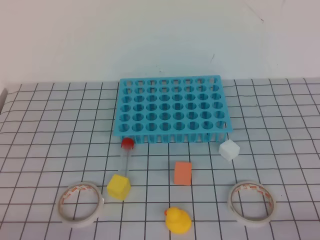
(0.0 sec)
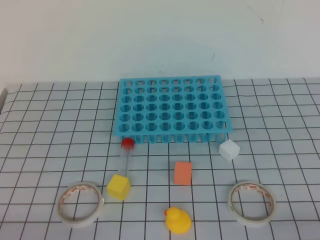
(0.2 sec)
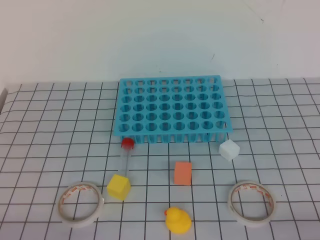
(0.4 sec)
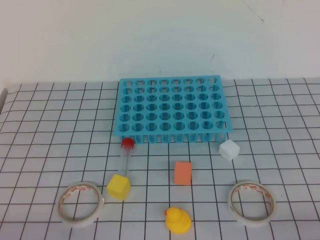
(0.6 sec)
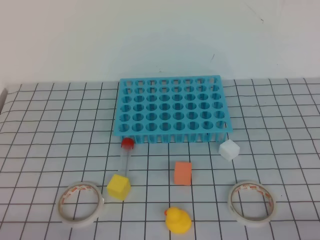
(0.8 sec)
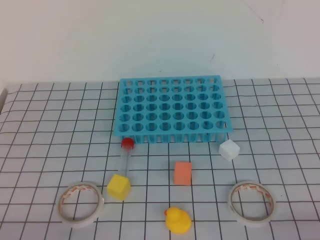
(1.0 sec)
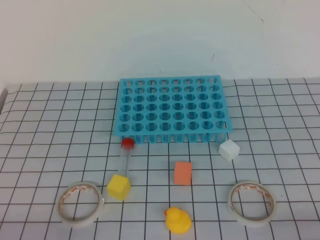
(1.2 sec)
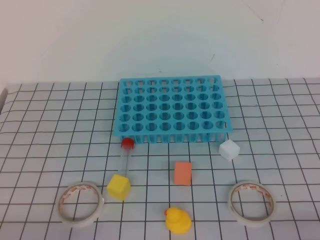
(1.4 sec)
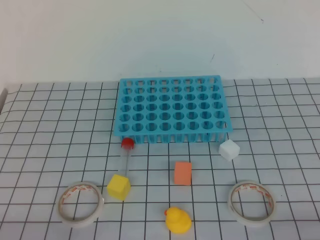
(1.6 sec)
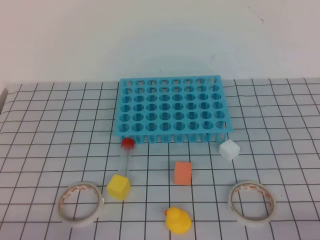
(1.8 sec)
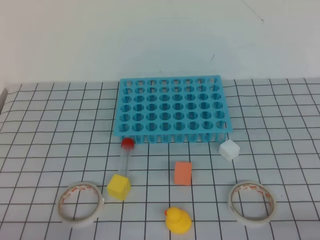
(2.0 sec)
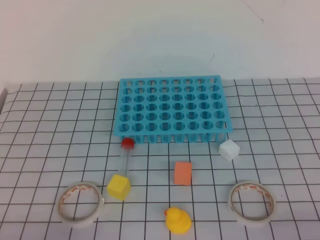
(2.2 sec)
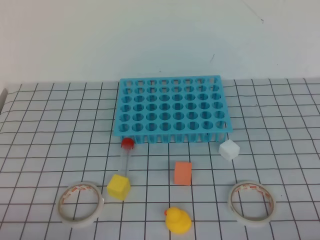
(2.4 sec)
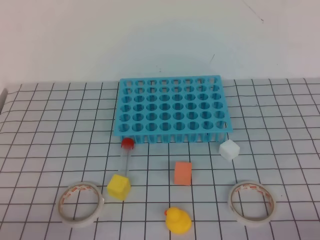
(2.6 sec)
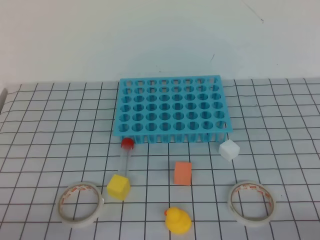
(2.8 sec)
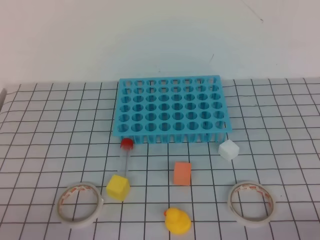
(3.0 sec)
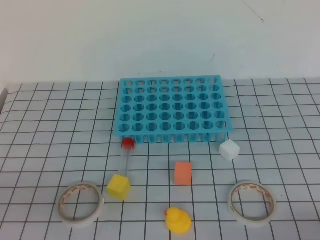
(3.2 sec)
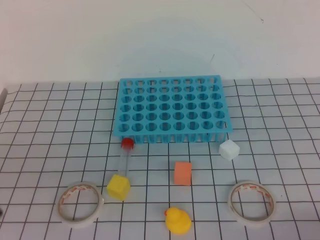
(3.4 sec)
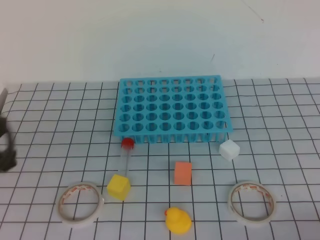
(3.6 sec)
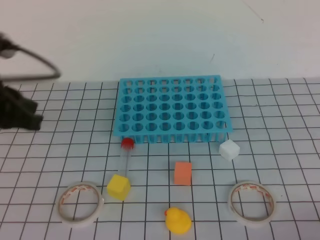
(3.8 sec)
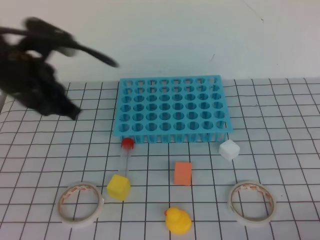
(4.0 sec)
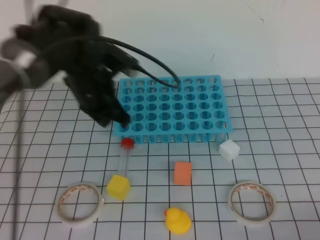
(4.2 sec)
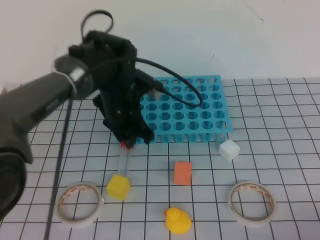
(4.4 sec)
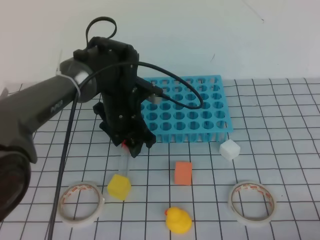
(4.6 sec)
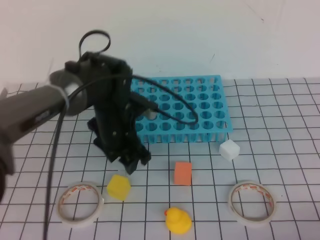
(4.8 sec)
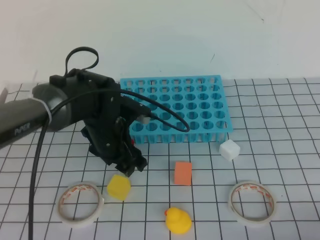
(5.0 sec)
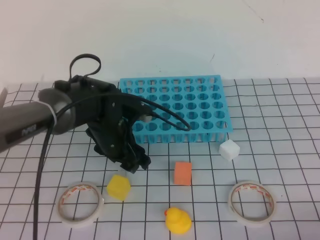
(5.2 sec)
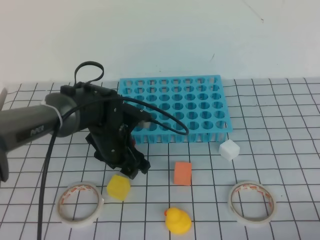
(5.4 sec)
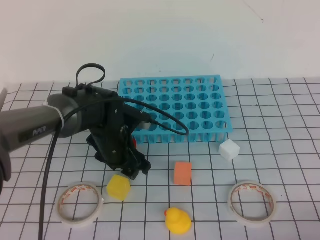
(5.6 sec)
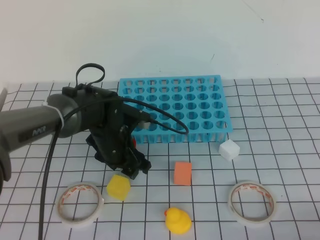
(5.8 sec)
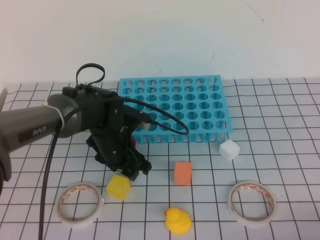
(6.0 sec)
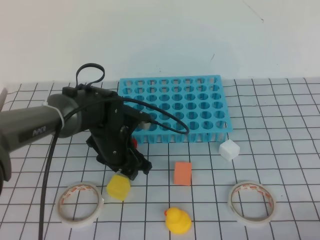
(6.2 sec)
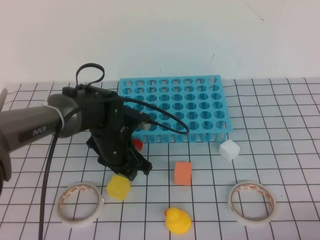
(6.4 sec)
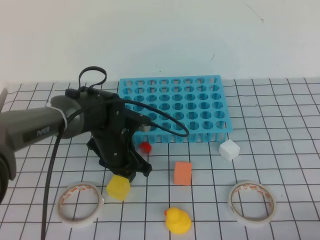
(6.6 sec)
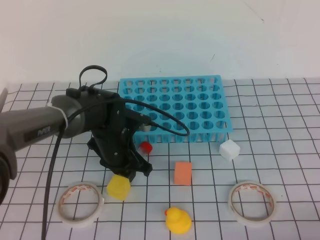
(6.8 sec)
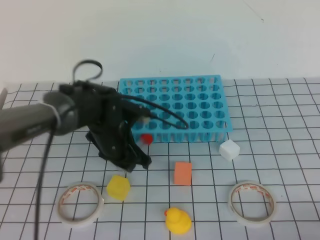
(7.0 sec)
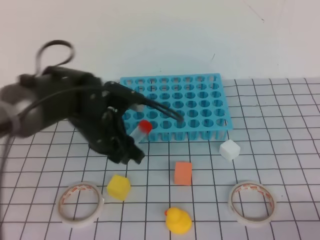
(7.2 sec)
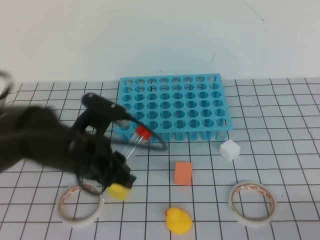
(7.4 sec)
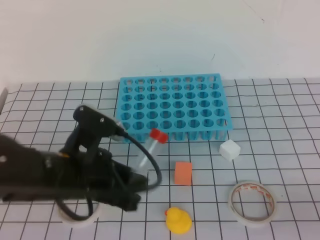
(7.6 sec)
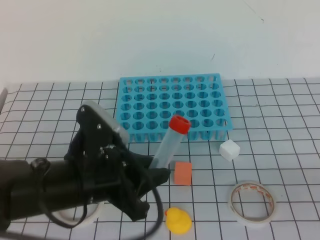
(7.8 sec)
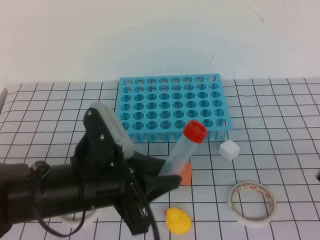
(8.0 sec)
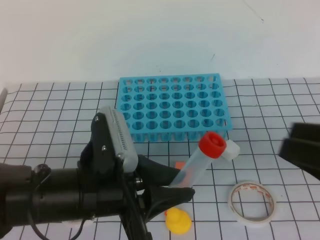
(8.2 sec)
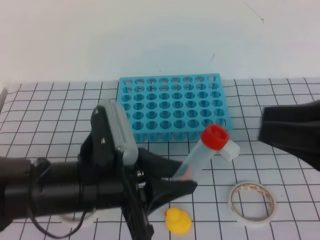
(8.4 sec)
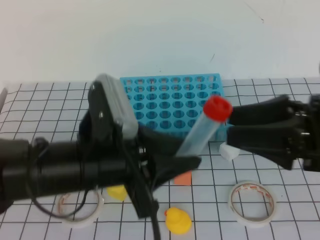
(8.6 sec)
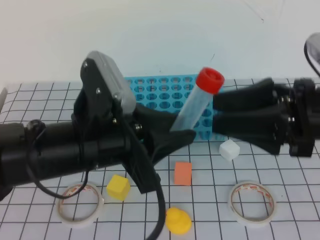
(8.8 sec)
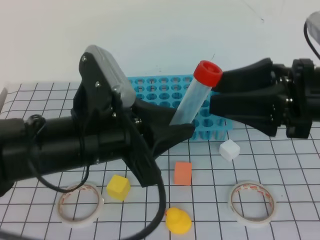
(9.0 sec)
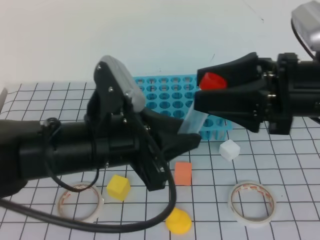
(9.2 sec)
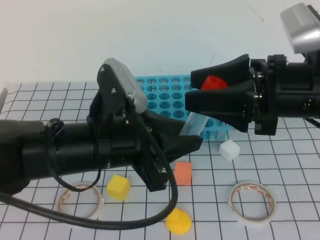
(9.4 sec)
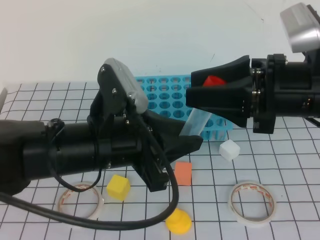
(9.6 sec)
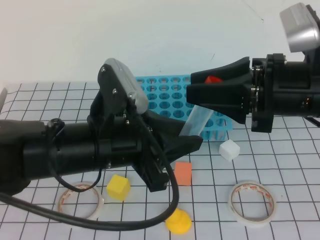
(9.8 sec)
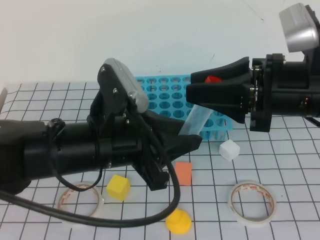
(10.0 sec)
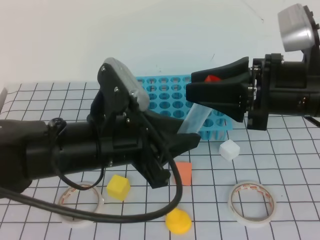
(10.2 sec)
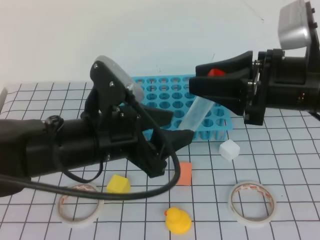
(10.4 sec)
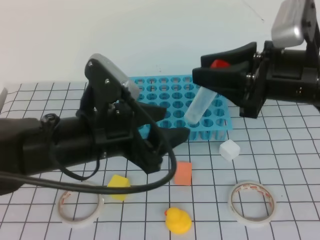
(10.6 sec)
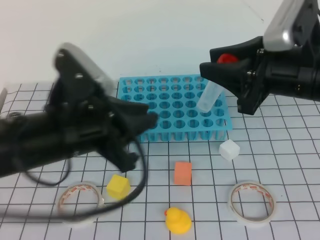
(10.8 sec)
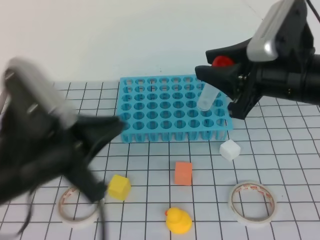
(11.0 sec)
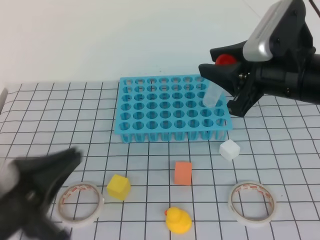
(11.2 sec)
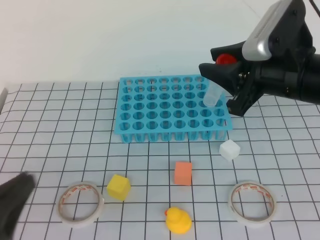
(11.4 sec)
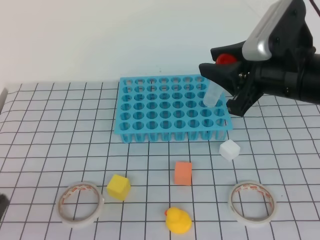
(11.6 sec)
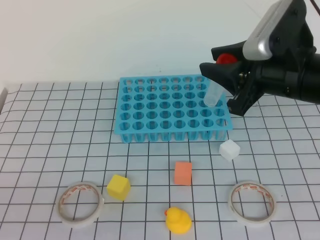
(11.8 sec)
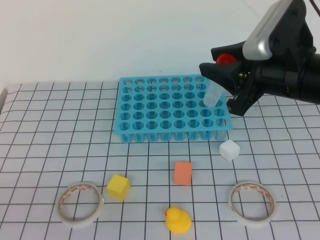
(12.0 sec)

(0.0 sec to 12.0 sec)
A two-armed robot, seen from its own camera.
0.0 sec - 1.6 sec: The two grippers keep their place.
3.0 sec - 4.4 sec: The left gripper heads forward and to the right, covering approximately 40 cm, and opens.
4.4 sec - 6.0 sec: The left gripper moves downward, about 10 cm, and opens its fingers.
6.0 sec - 7.6 sec: The left gripper goes roughly 15 cm backward and upward, and closes.
7.6 sec - 9.0 sec: The left gripper shifts roughly 5 cm upward, while the right gripper travels forward, to the left and upward by about 25 cm, and opens up.
9.0 sec - 10.4 sec: The right gripper closes, while the left gripper opens up.
10.4 sec - 12.0 sec: The left gripper heads backward and to the left, covering roughly 25 cm, and closes up.

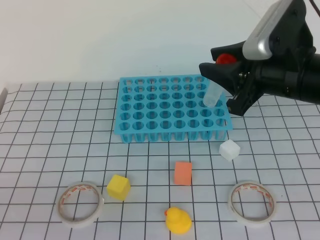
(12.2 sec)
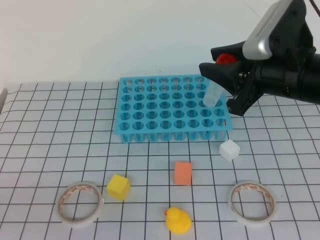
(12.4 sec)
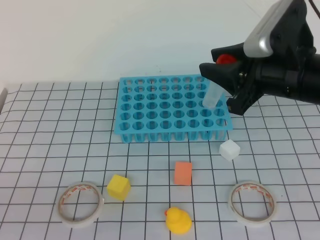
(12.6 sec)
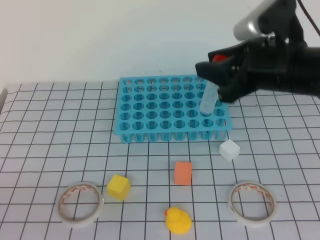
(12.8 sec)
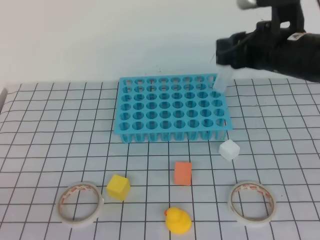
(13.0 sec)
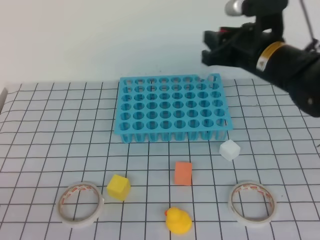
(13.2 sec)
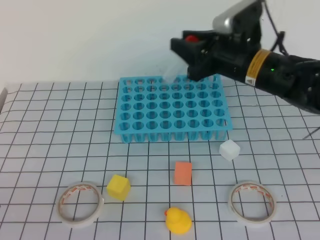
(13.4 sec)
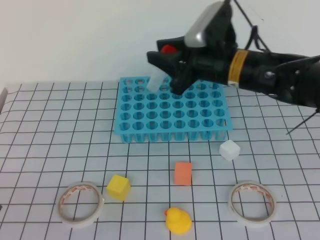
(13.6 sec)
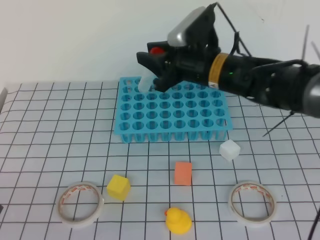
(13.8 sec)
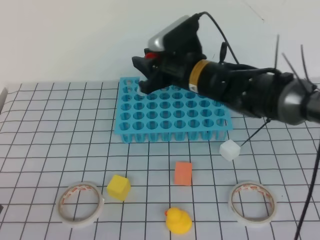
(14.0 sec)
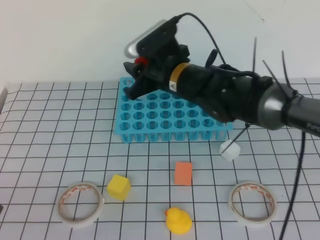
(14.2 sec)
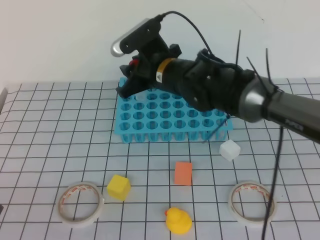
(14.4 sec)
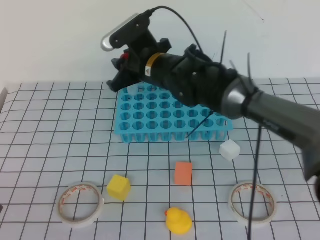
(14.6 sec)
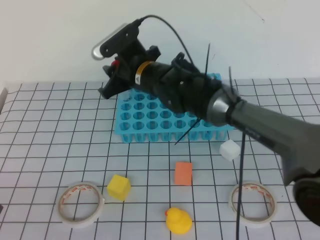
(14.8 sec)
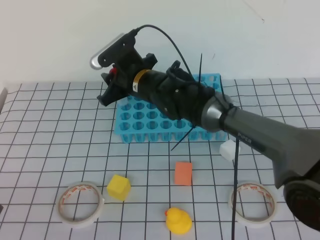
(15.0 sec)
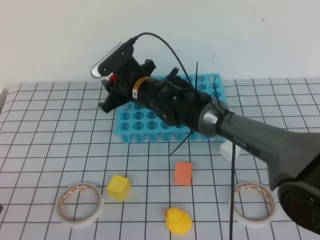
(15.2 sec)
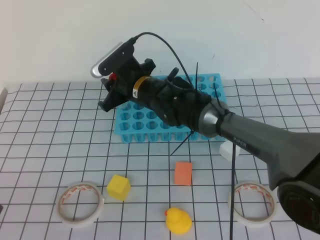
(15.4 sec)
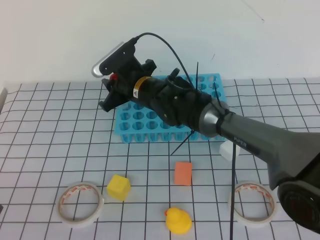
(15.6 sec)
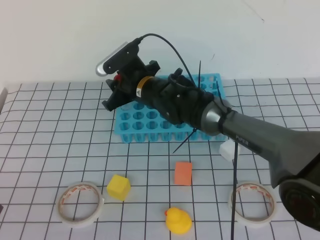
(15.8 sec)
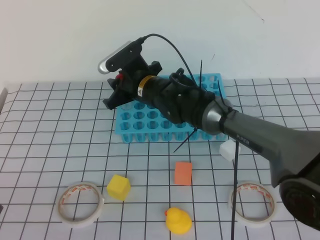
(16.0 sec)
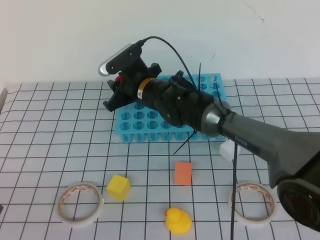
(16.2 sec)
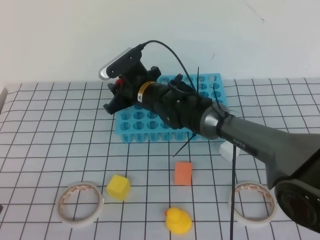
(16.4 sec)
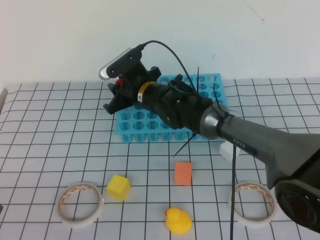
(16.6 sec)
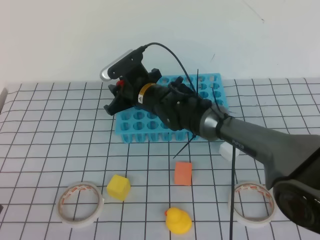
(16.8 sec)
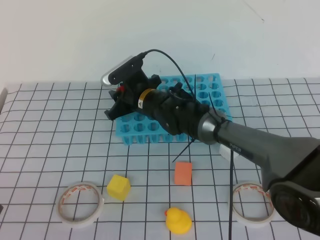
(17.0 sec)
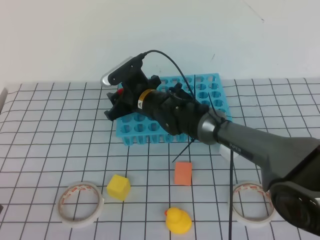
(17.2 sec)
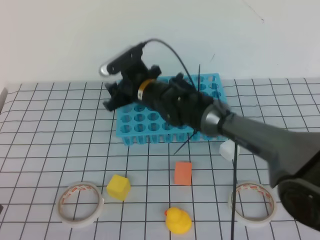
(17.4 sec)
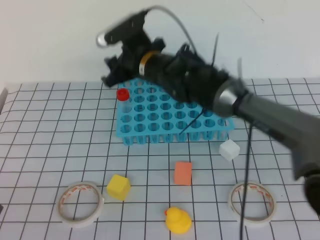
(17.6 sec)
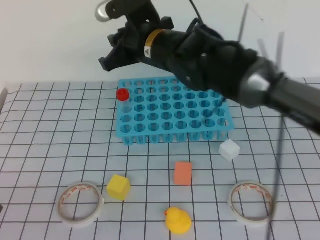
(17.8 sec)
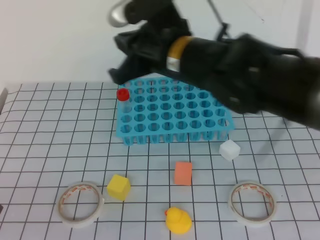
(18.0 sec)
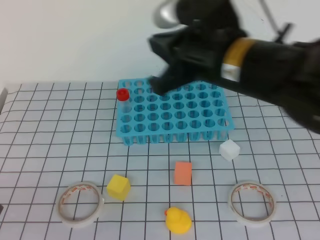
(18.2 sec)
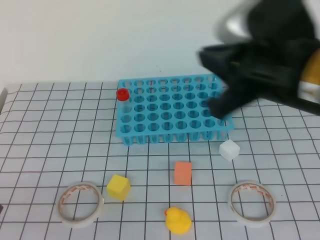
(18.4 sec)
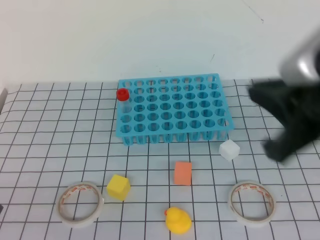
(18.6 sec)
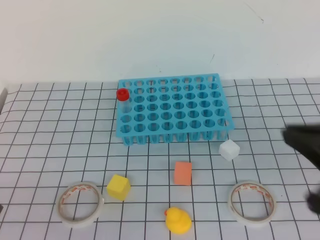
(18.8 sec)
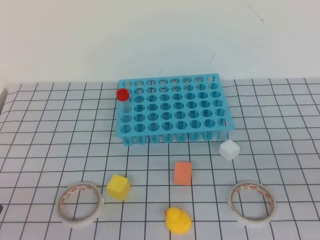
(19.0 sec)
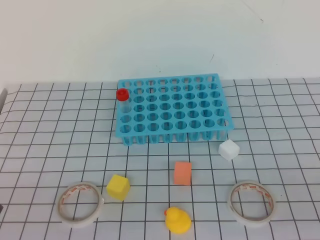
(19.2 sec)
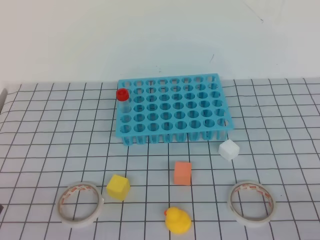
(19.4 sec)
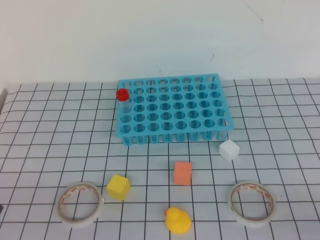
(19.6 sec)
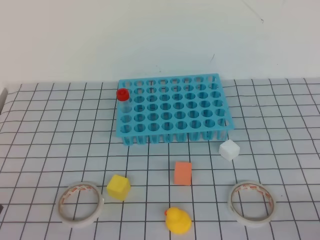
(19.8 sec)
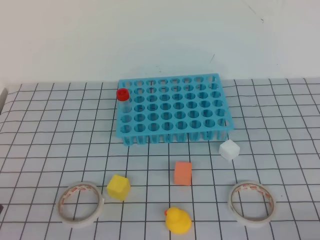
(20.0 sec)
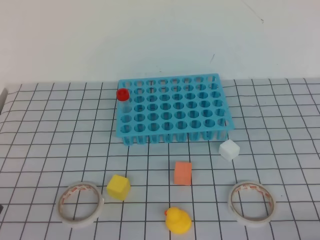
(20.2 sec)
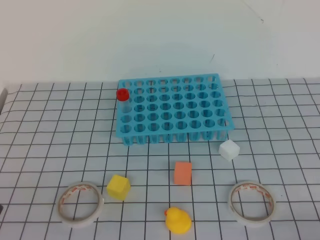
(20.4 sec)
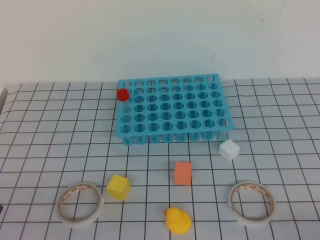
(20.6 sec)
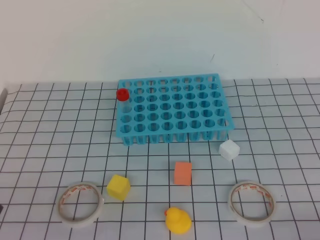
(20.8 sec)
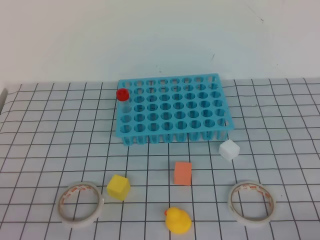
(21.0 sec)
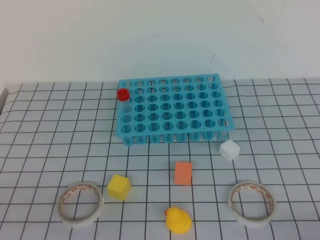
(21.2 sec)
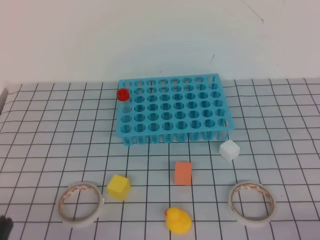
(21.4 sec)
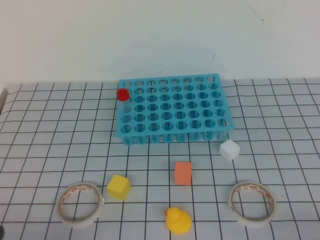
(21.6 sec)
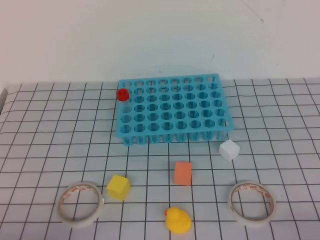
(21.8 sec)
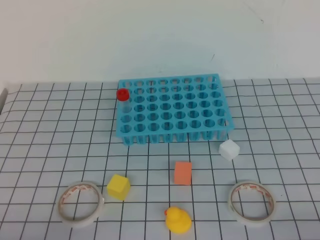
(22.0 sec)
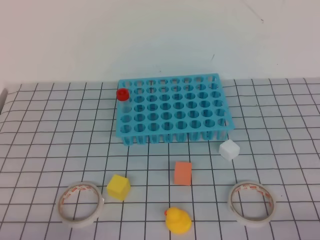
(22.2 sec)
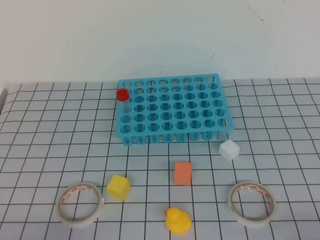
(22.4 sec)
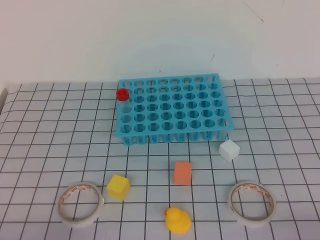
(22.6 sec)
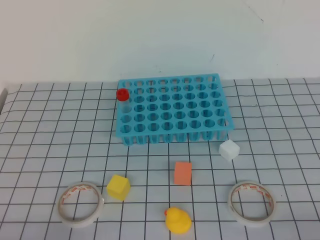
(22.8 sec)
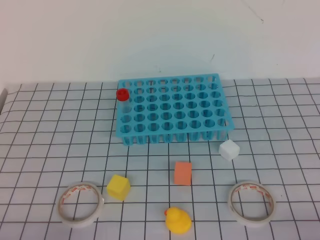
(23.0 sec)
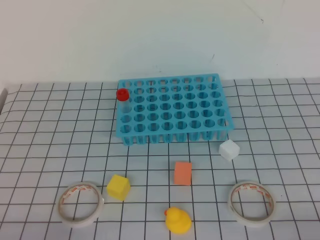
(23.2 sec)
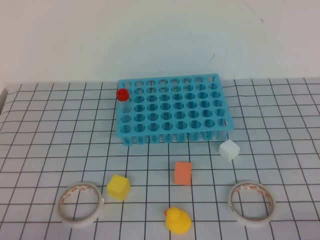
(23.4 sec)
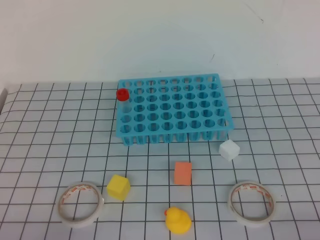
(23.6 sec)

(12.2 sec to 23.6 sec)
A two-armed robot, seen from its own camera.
12.2 sec - 13.6 sec: The right gripper shifts some 10 cm forward and to the left.
13.6 sec - 15.0 sec: The right gripper moves to the left, some 15 cm.
15.0 sec - 16.4 sec: There are only small adjustments of the grippers.
16.4 sec - 17.8 sec: The right gripper travels upward and backward by some 15 cm.
17.8 sec - 19.4 sec: The right gripper moves backward and to the right, roughly 50 cm, and closes its fingers.
22.2 sec - 23.6 sec: Both grippers stay put.
